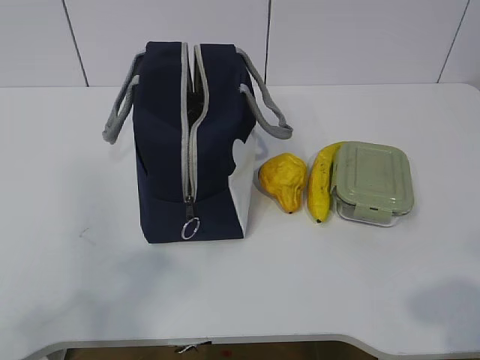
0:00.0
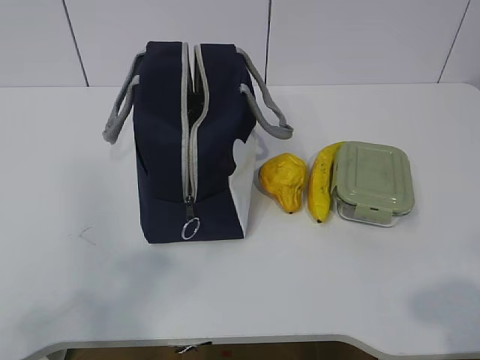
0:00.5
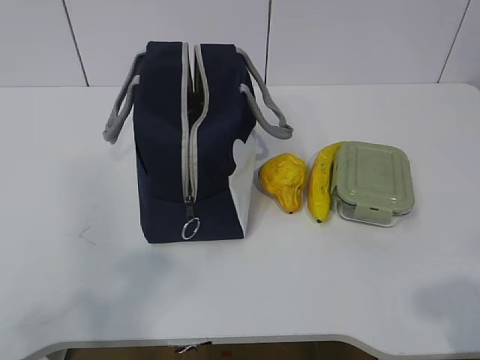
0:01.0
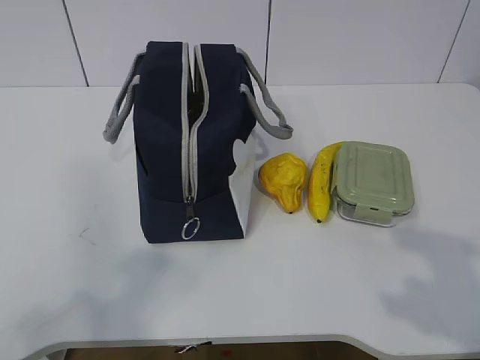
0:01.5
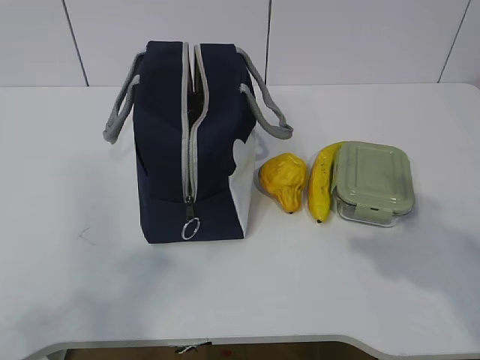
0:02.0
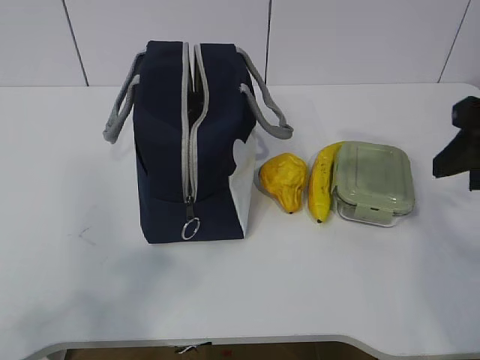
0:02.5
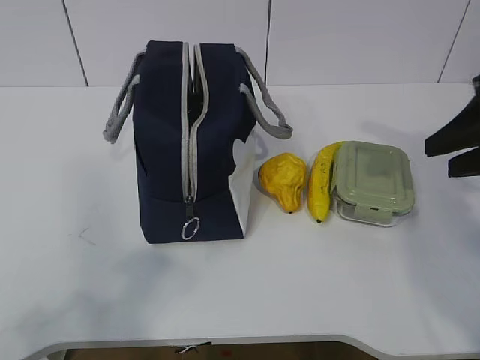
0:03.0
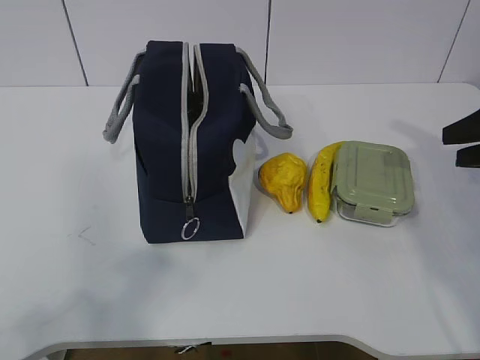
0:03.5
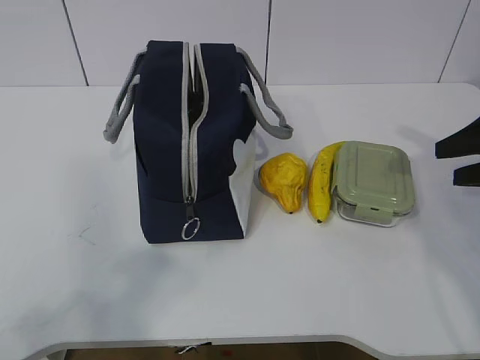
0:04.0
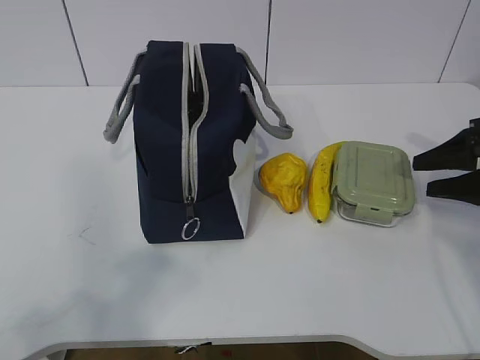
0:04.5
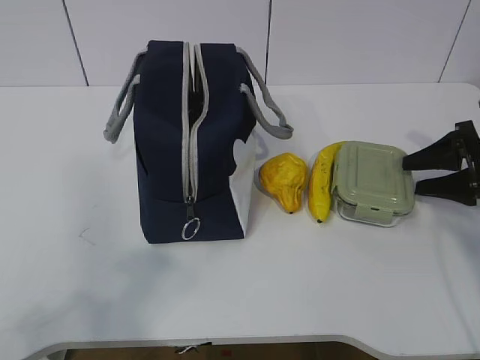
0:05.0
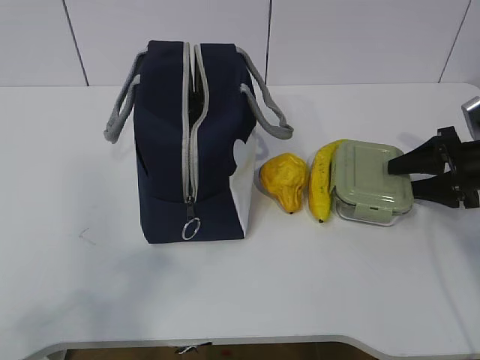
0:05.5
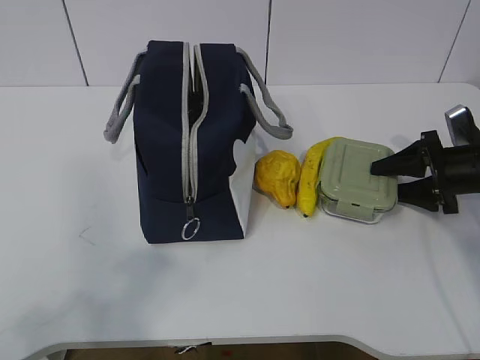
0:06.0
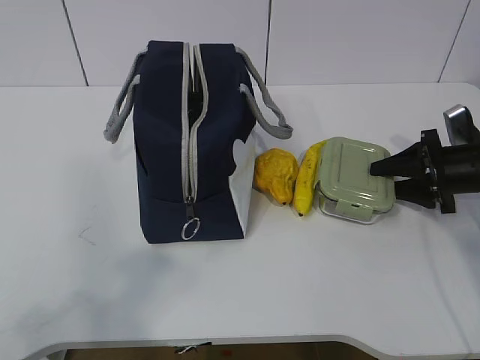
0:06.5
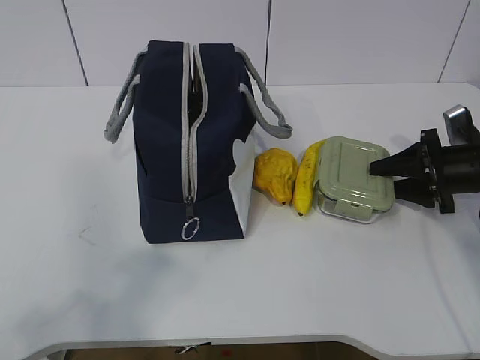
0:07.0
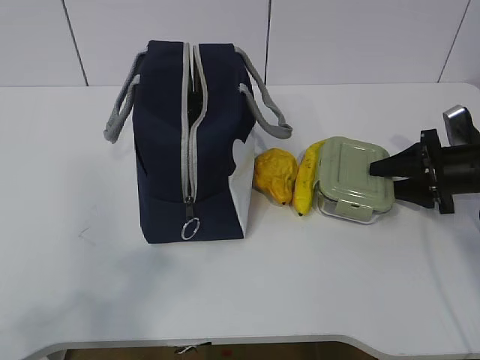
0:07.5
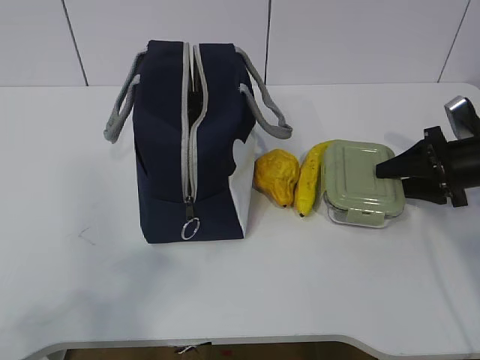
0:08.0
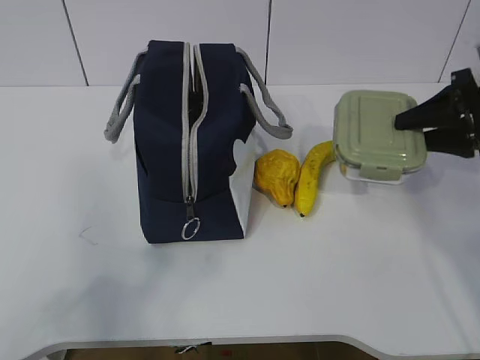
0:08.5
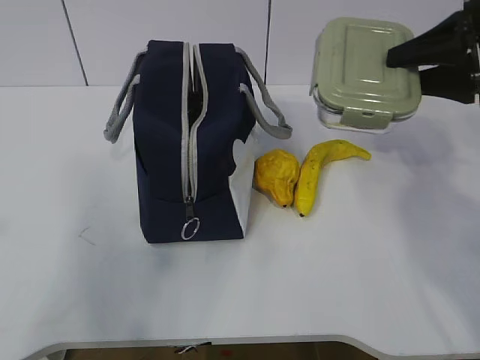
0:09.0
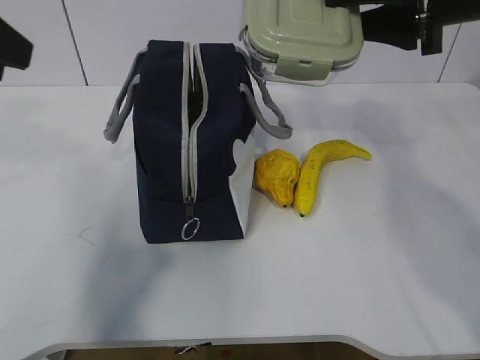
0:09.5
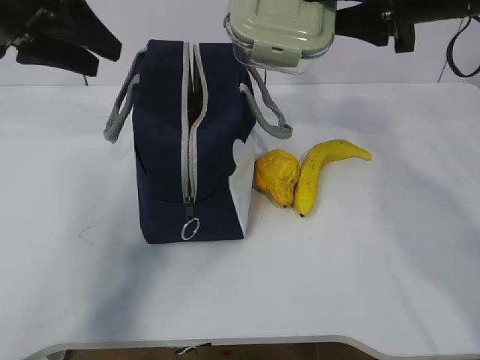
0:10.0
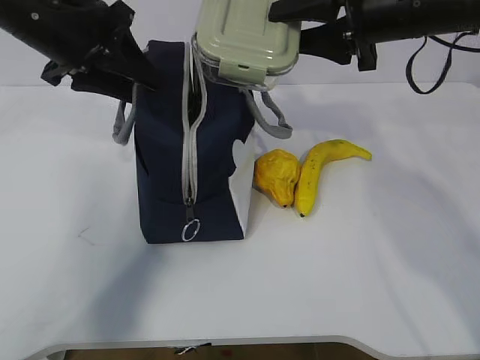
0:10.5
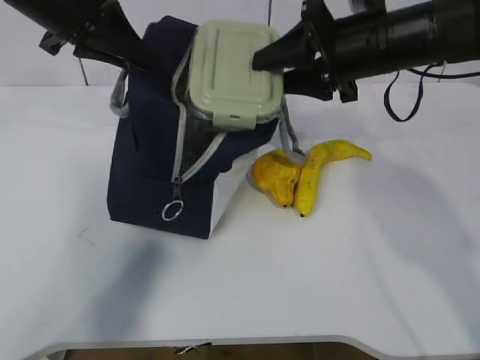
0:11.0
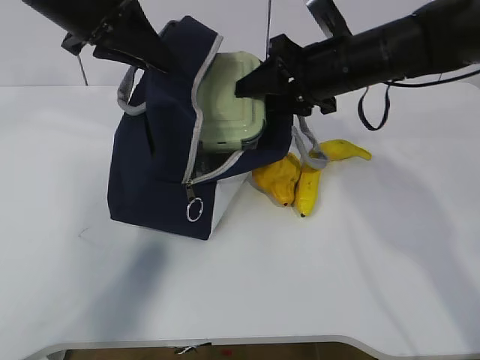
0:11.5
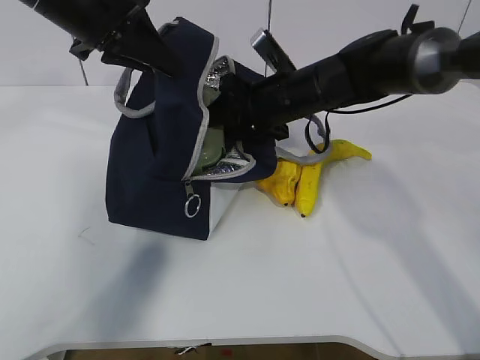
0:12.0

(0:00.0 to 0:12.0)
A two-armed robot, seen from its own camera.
Step, 0:00.0 - 0:06.5: Grab the lunch box with your right hand.
Step, 0:07.0 - 0:08.5: Grab the lunch bag with your left hand.
Step, 0:09.0 - 0:11.0: Place it into the bag with your right hand.
0:02.0 - 0:04.0: The right gripper moves forward and to the right, roughly 20 cm.
0:04.0 - 0:06.0: The right gripper travels downward and forward by roughly 15 cm.
0:06.0 - 0:08.0: The grippers make only small movements.
0:08.0 - 0:10.0: The left gripper is displaced forward by some 35 cm, while the right gripper heads upward and to the left, covering approximately 25 cm.
0:10.0 - 0:12.0: The right gripper shifts some 20 cm downward, to the left and forward. Meanwhile the left gripper moves to the right, some 5 cm, and closes up.

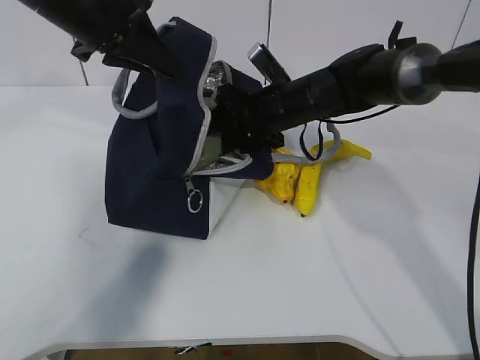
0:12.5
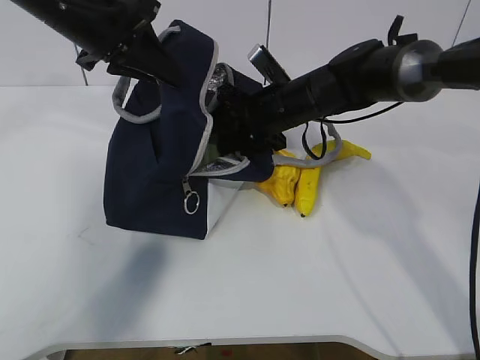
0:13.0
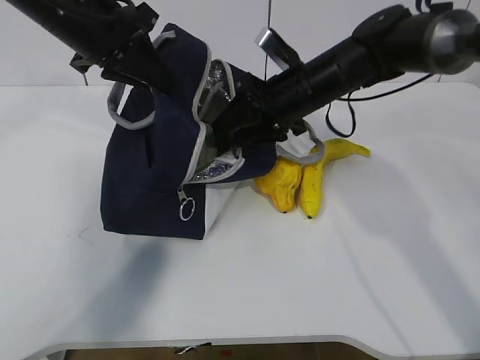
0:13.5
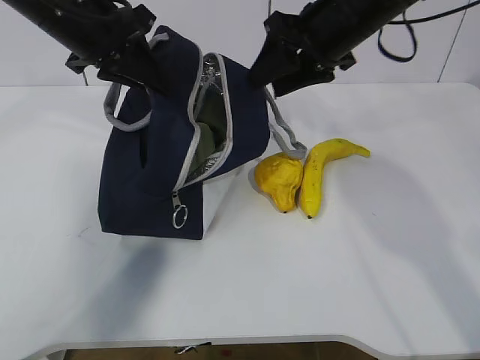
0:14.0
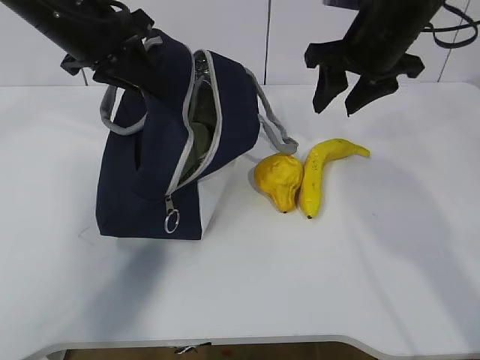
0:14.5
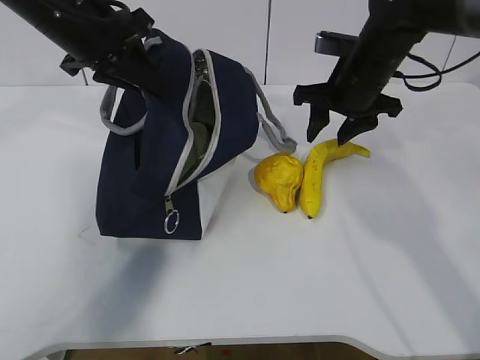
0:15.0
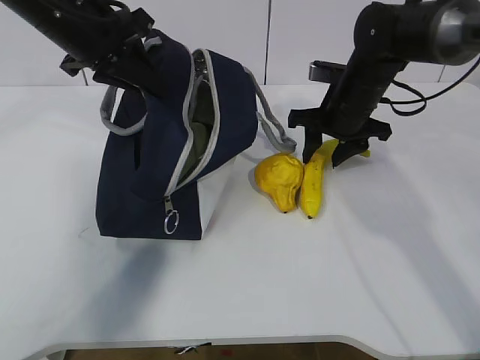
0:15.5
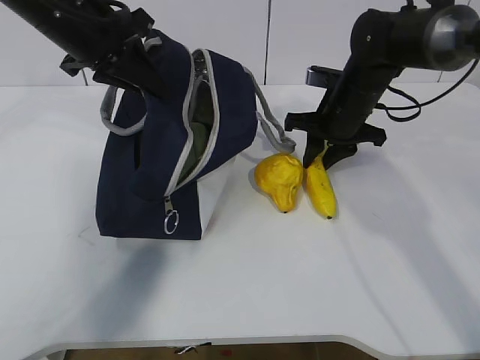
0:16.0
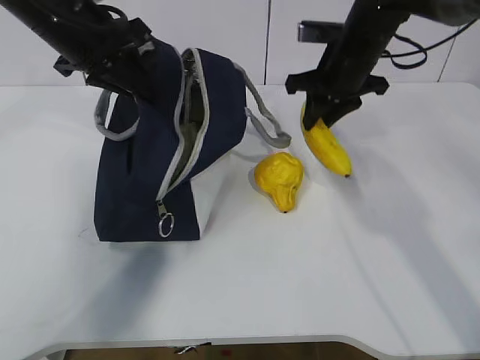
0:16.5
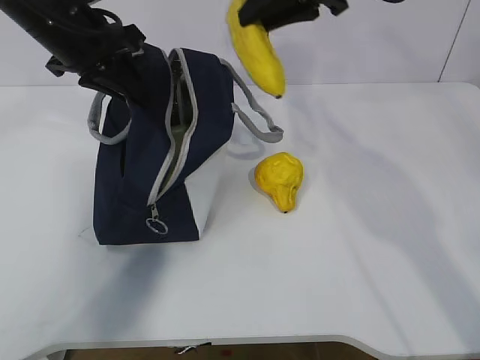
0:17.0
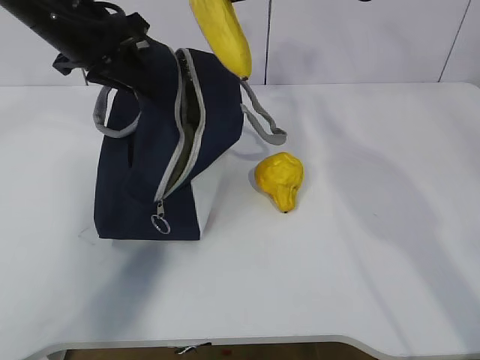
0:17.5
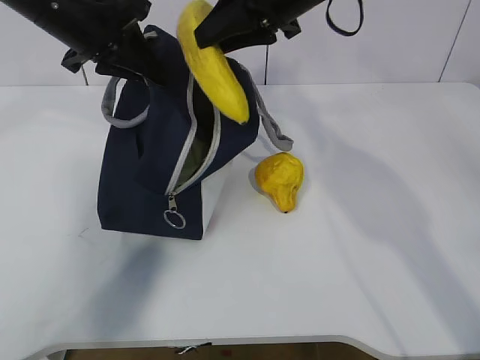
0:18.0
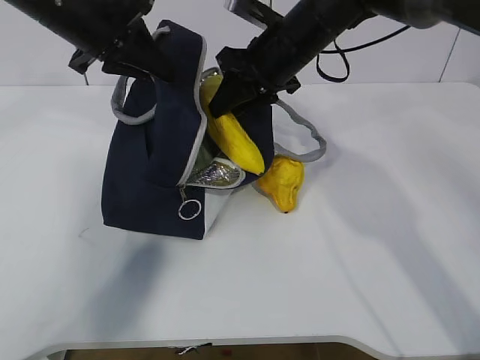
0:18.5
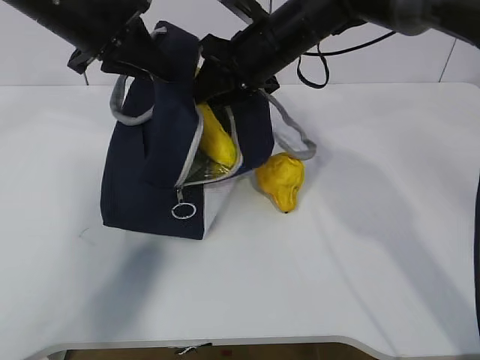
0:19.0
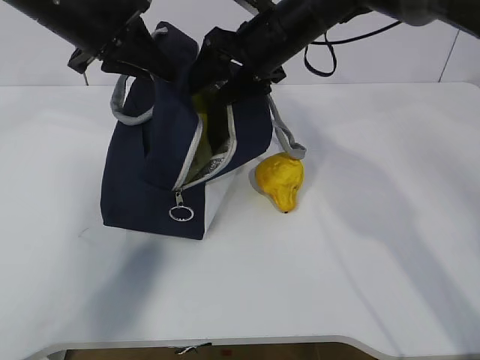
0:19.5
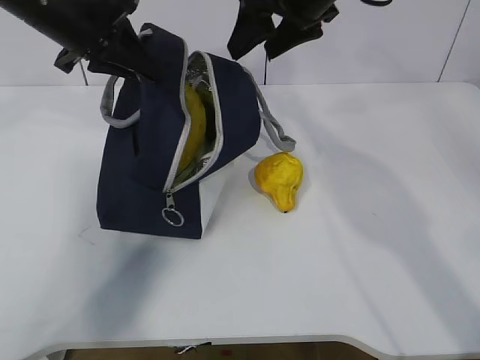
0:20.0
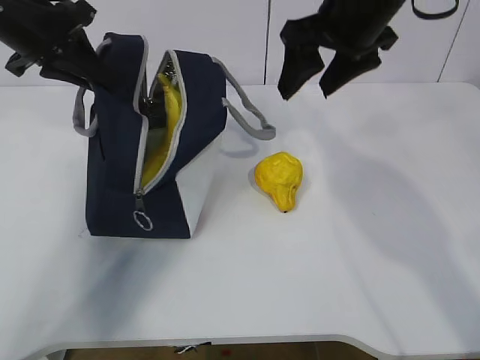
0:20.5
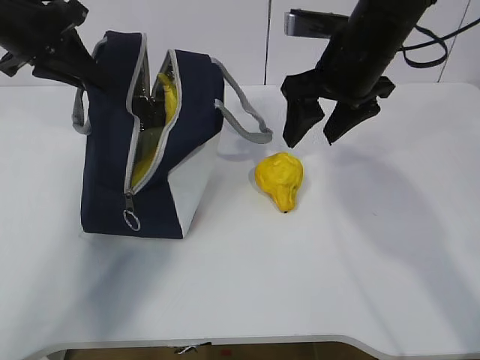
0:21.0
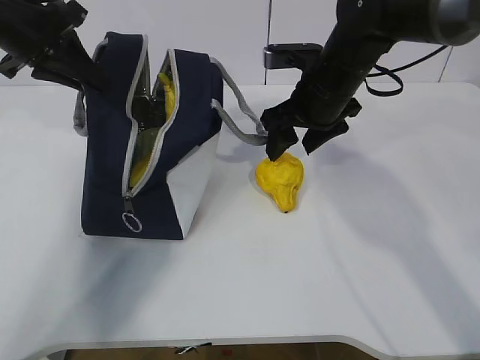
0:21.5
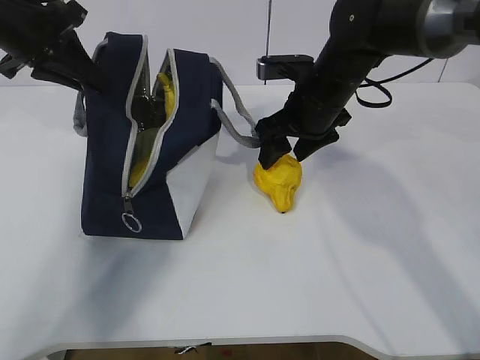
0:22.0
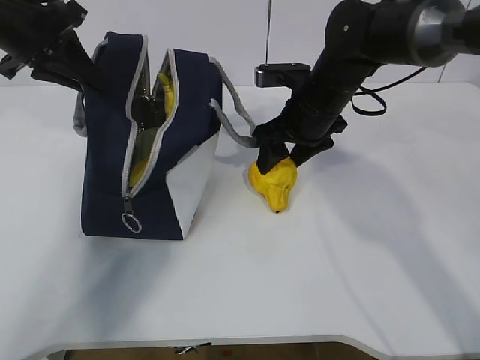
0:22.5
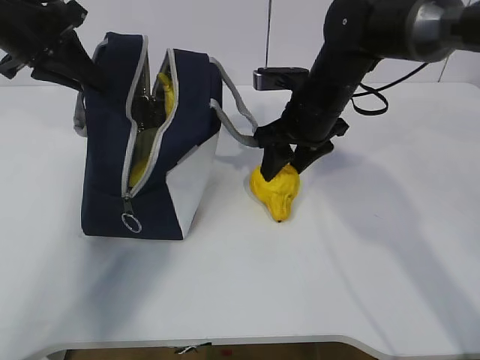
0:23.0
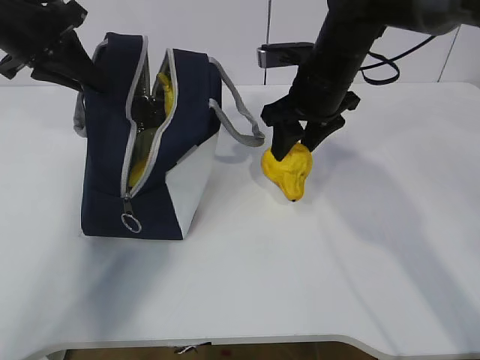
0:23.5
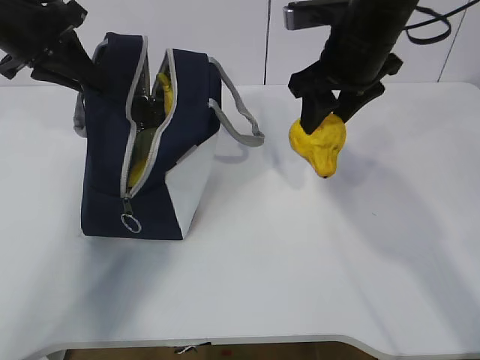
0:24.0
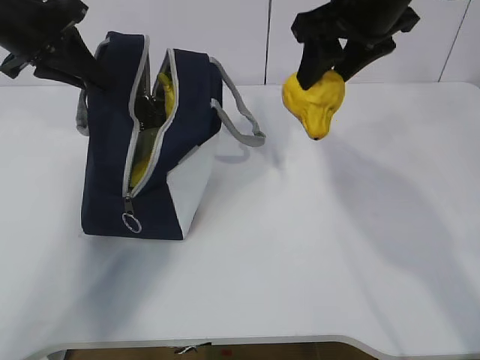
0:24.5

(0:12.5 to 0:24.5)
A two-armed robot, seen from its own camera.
Step, 0:13.5 - 0:16.0: Place it into the bag with your right hand.
Step, 0:16.5 - 0:19.0: Grab the pear with your right hand.
Step, 0:19.5 - 0:21.5: Secure the lunch bag with your left hand.
Step, 0:22.0 - 0:23.5: Grab the lunch bag with your right hand.
0:12.5 - 0:14.5: The right gripper heads upward and to the right, covering some 15 cm.
0:14.5 - 0:16.5: The right gripper shifts approximately 10 cm downward and forward.
0:16.5 - 0:18.5: The right gripper moves to the left, roughly 10 cm, and travels upward and back again, some 15 cm each way.
0:18.5 - 0:20.5: The right gripper is displaced upward, backward and to the right by roughly 10 cm, and opens its fingers, while the left gripper is displaced to the left by about 5 cm.
0:20.5 - 0:22.5: The right gripper heads downward, covering approximately 15 cm.
0:22.5 - 0:24.5: The right gripper travels upward by about 15 cm.

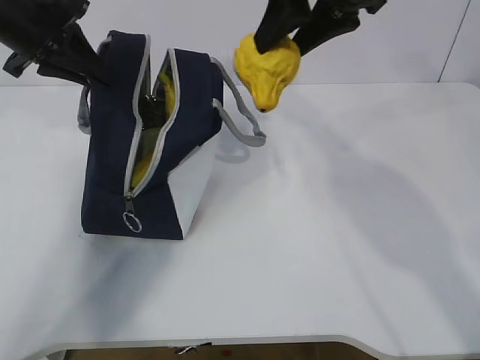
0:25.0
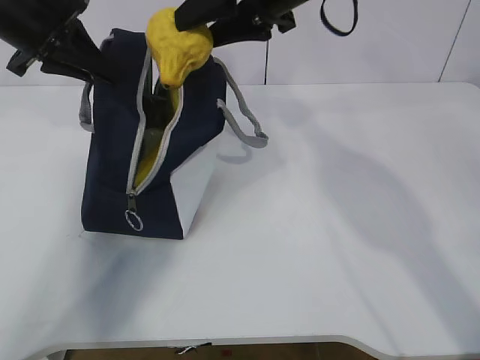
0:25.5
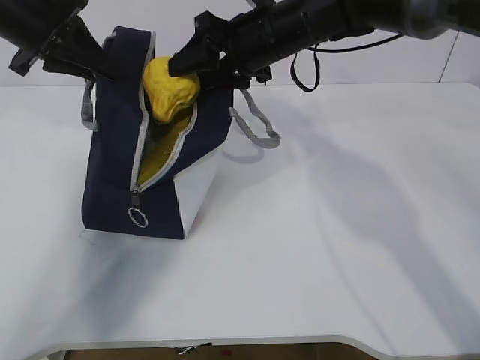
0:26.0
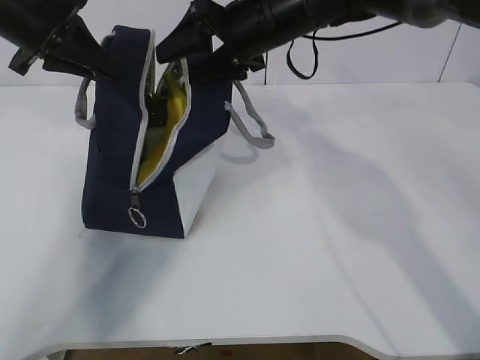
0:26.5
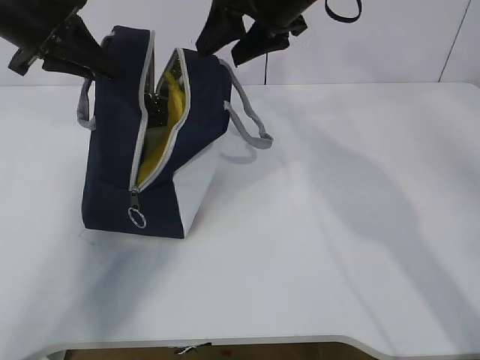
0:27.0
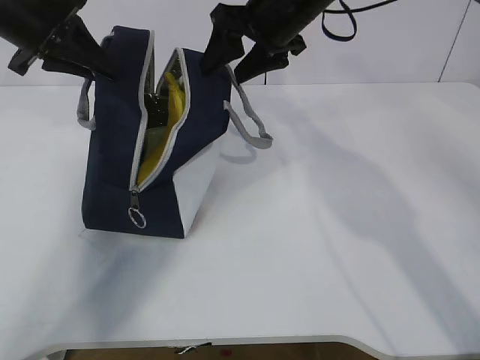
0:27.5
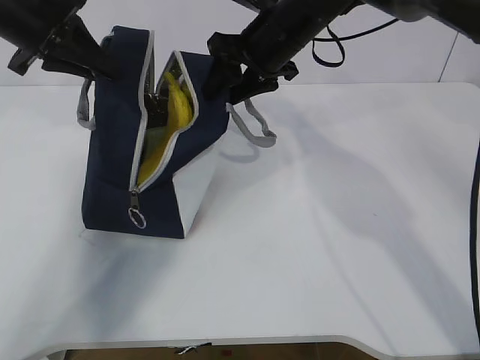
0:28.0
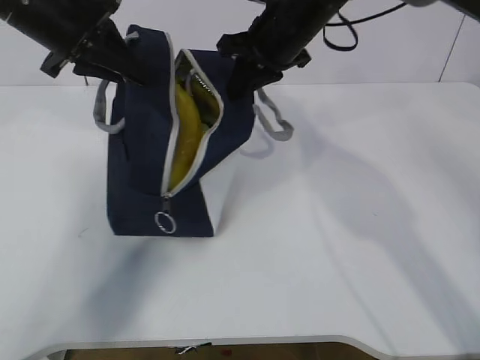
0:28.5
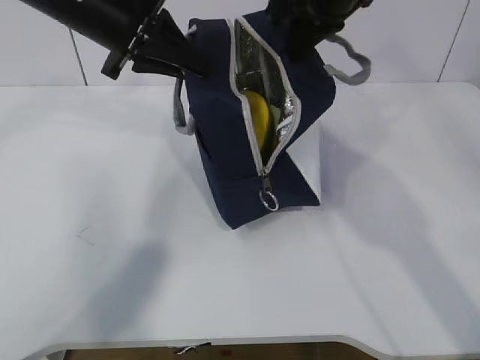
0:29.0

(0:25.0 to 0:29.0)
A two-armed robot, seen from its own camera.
0:25.0 - 0:27.0: The right gripper shifts some 5 cm forward.
0:27.0 - 0:29.0: The left gripper goes approximately 10 cm to the right, while the right gripper goes downward and returns, roughly 5 cm each way, and closes up.
